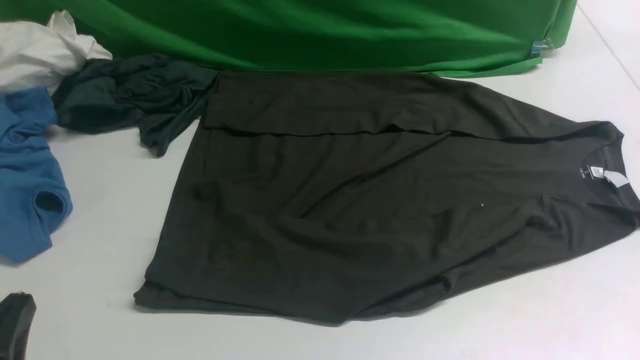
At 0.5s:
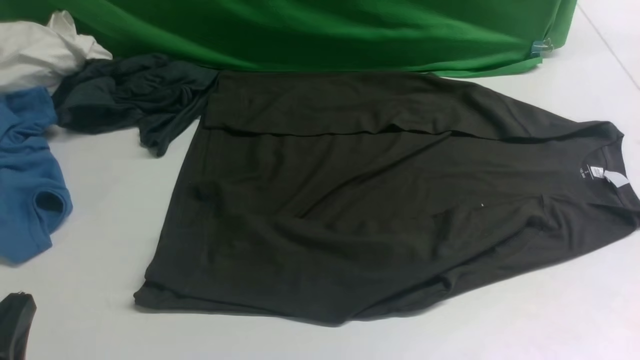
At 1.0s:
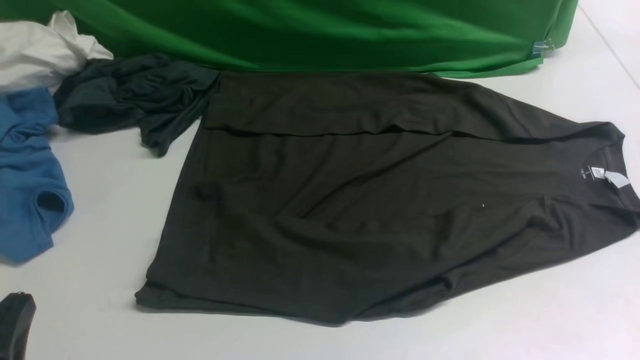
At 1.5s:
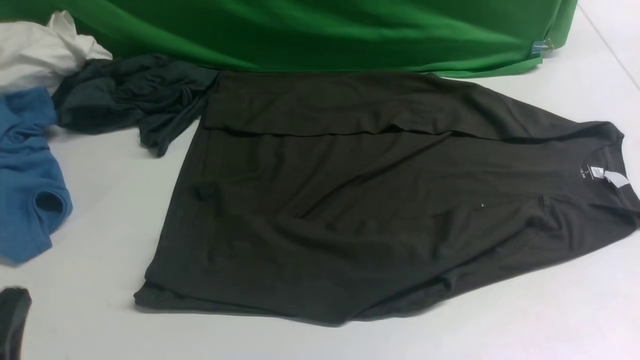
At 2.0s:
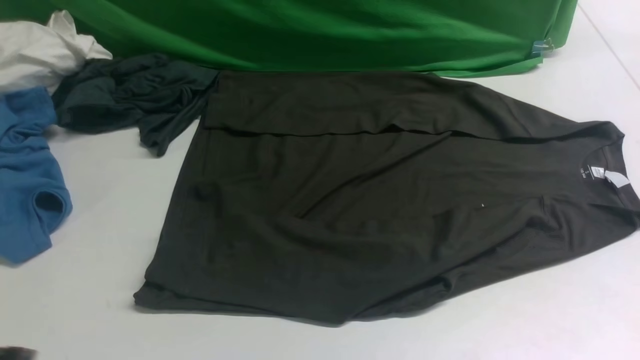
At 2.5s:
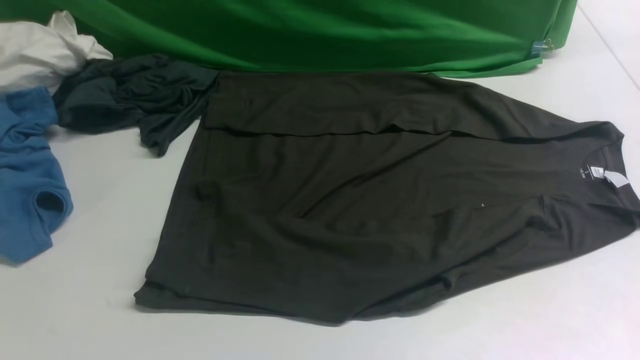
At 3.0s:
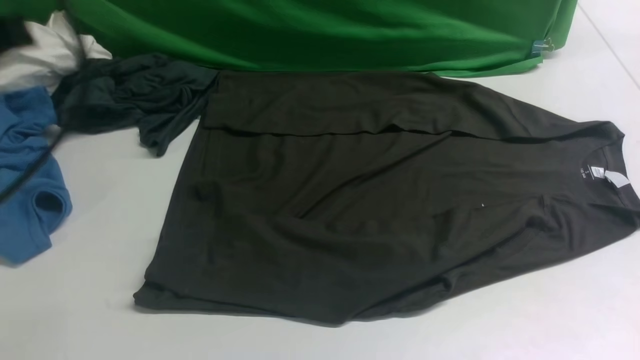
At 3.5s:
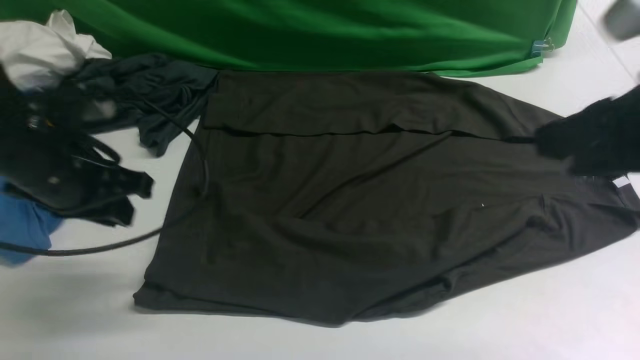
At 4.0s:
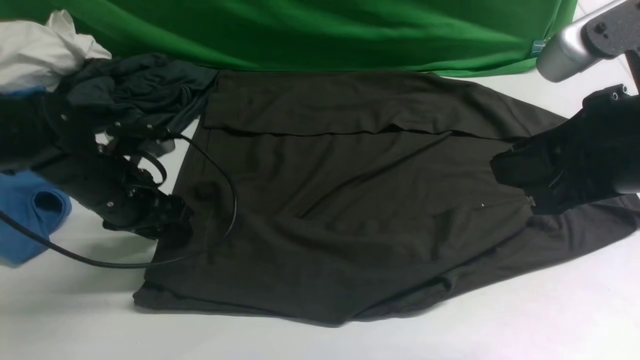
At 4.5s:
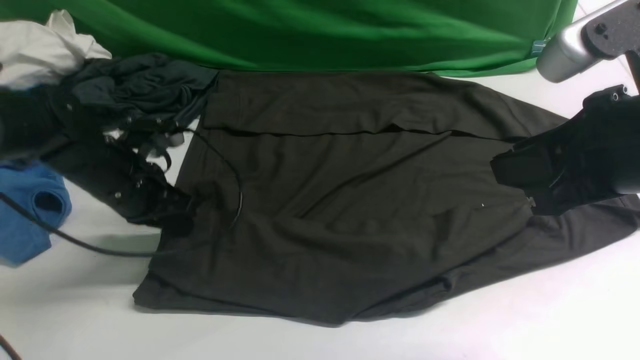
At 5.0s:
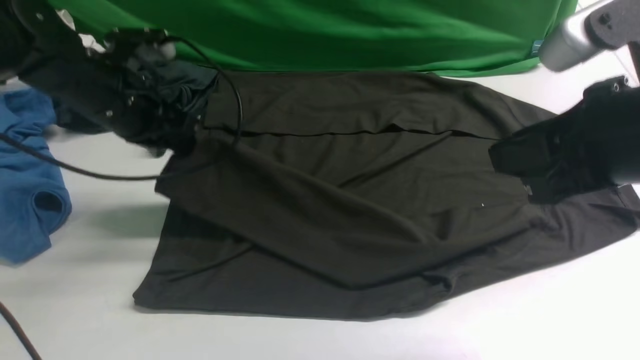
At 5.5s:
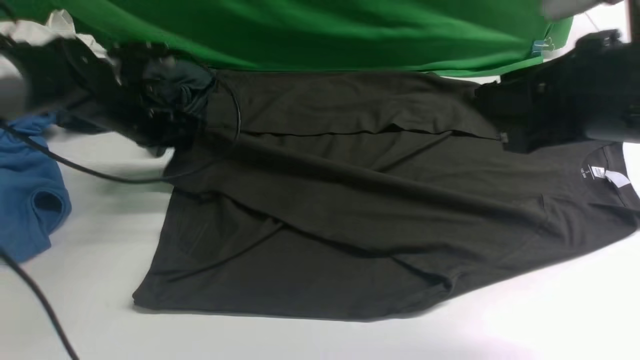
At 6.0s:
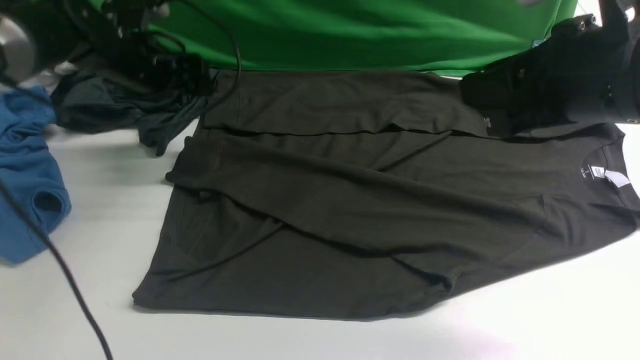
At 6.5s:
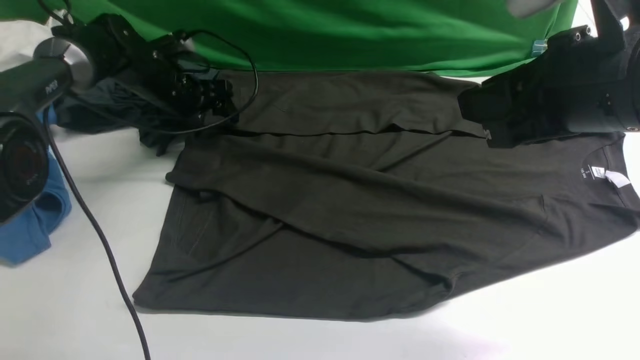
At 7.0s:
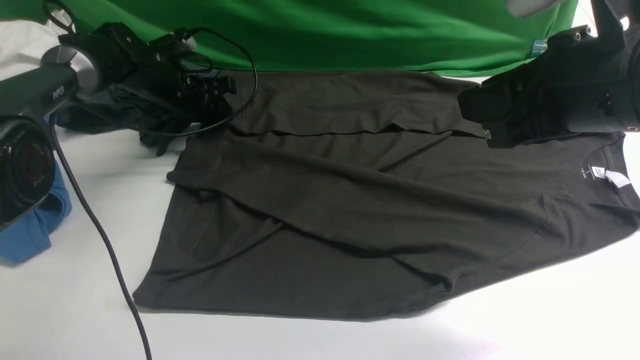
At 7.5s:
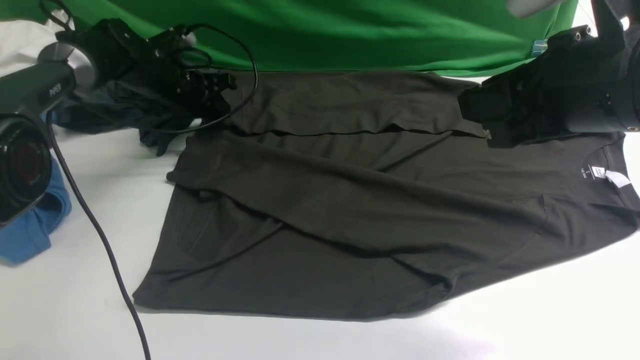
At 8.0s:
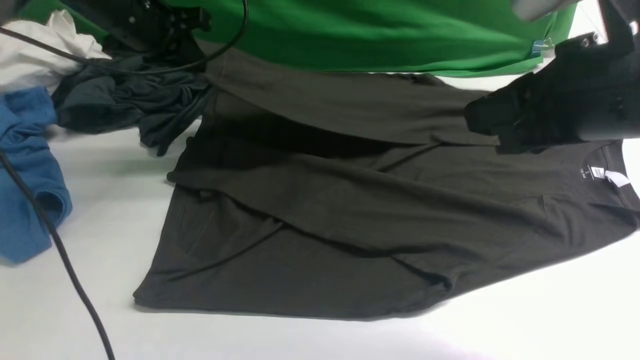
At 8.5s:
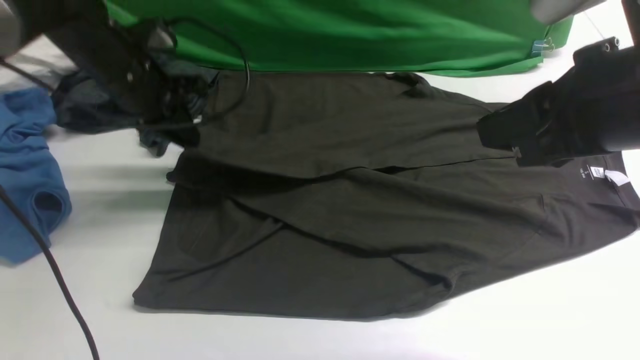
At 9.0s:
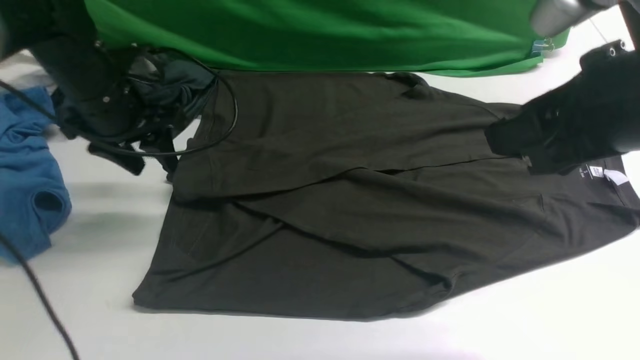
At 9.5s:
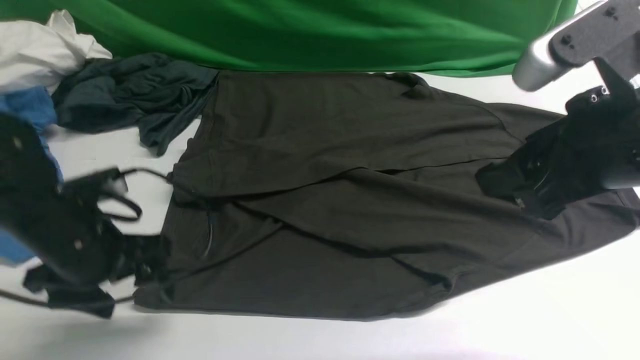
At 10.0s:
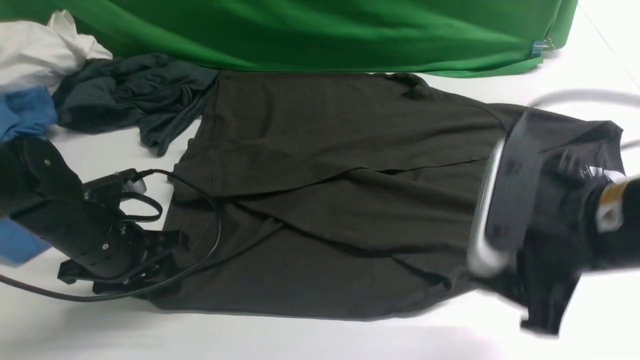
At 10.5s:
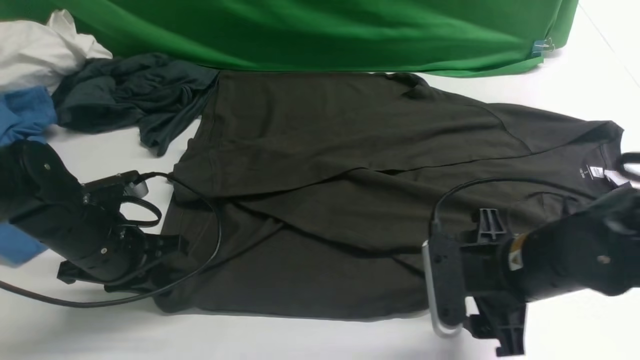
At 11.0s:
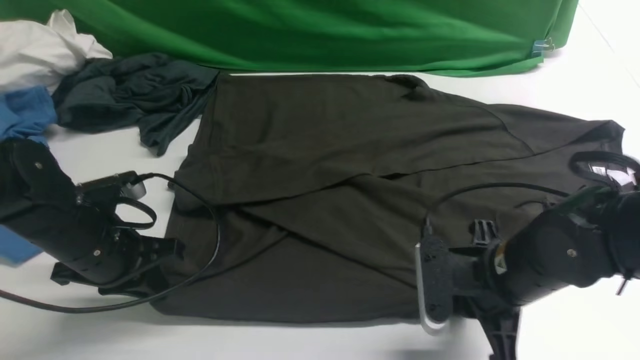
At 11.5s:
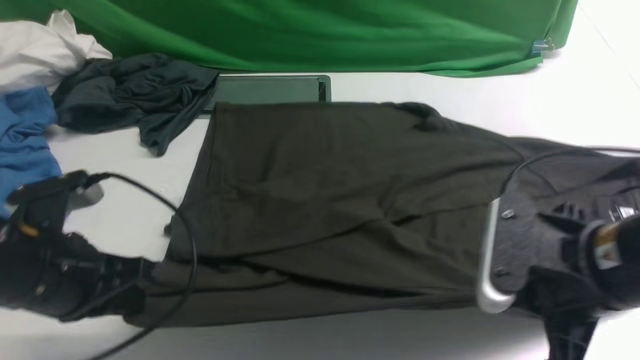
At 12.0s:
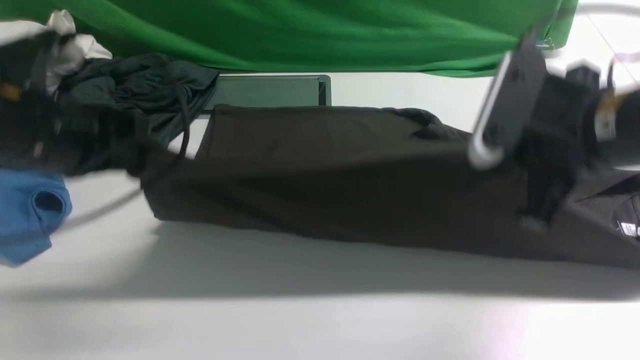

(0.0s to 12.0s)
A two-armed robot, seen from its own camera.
Step, 0.0s - 4.5s: use the left arm to clamp the cuff closest to it.
Step, 5.0s - 5.5s: use the left arm to drag and place the cuff at the centered position on the left edge of the fabric.
Step, 6.0s - 7.5s: use the left arm to clamp the cuff farthest from it.
Step, 8.0s - 9.0s: use the left arm to drag and drop the cuff onto the cuff closest to the left arm.
Step, 9.5s - 11.0s: use both arms simultaneously to clamp the lower edge of the clothing fabric.
0.0s - 2.0s: The left gripper travels upward by some 5 cm.
2.0s - 4.0s: The left gripper is displaced forward by about 30 cm, and opens, while the right gripper goes approximately 20 cm forward, to the left and upward.
4.0s - 6.0s: The left gripper travels forward by approximately 15 cm, and closes and opens again.
6.0s - 8.0s: The left gripper travels upward by approximately 10 cm, and closes its fingers.
8.0s - 10.0s: The right gripper travels downward by approximately 10 cm, and opens; the left gripper moves backward and downward, roughly 25 cm, and opens its fingers.
10.0s - 12.0s: The left gripper moves upward, some 15 cm, and closes up. Meanwhile the right gripper moves forward, about 5 cm, reaches roughly 10 cm downward, then returns, and closes.

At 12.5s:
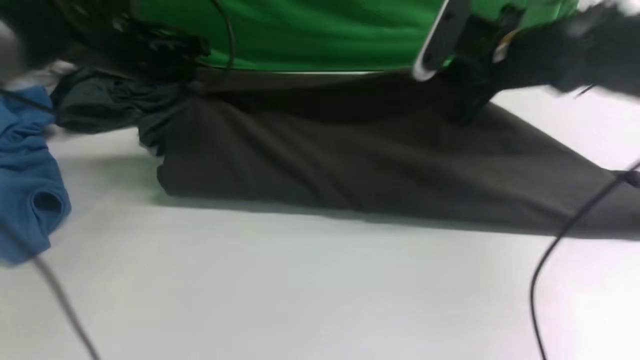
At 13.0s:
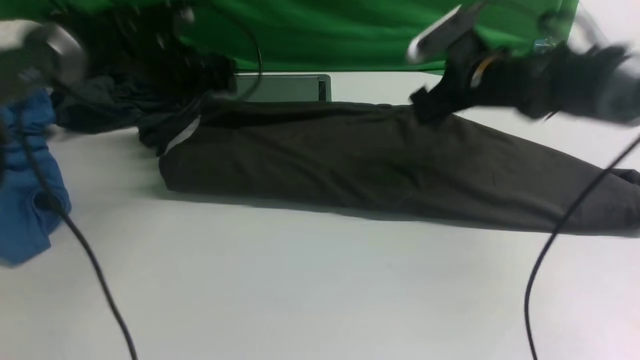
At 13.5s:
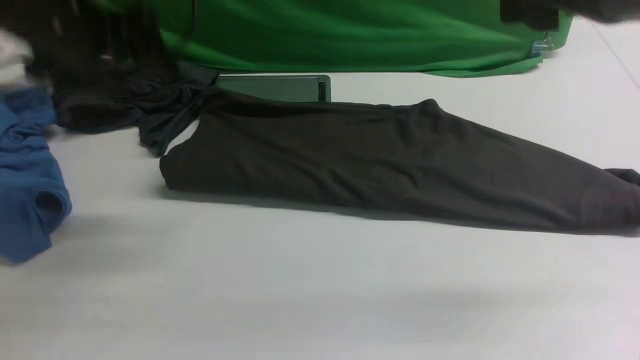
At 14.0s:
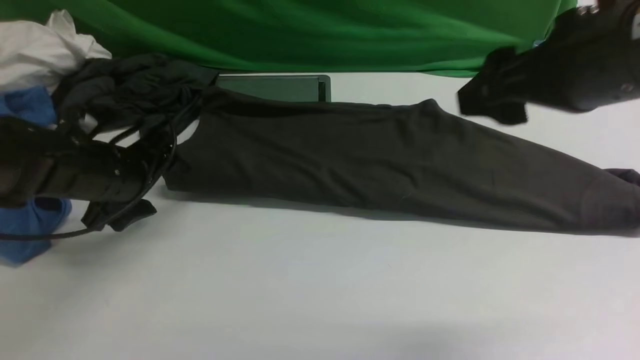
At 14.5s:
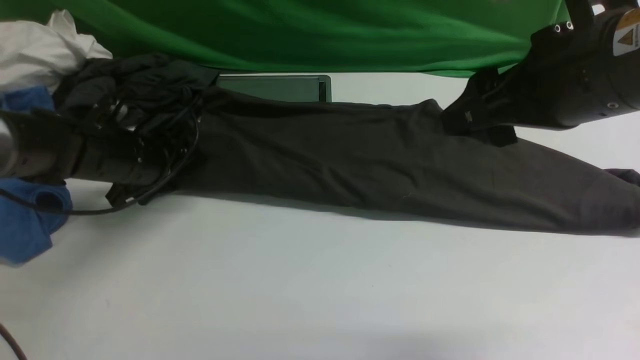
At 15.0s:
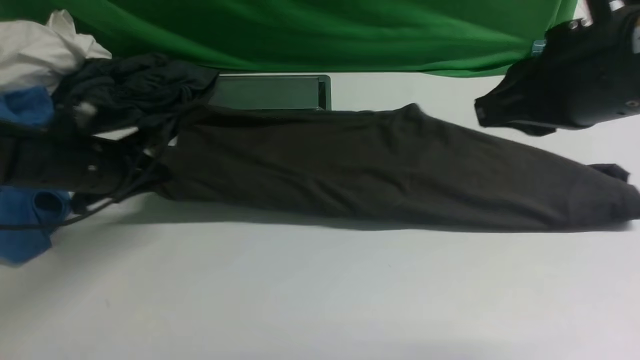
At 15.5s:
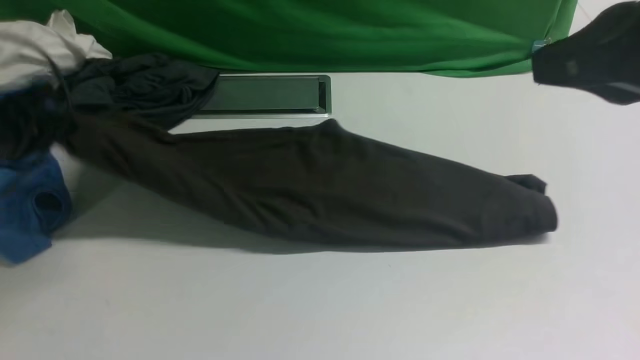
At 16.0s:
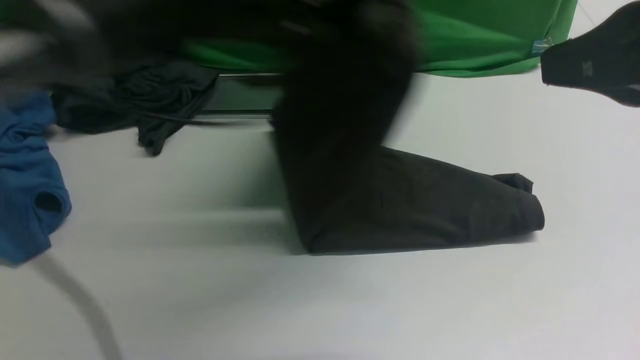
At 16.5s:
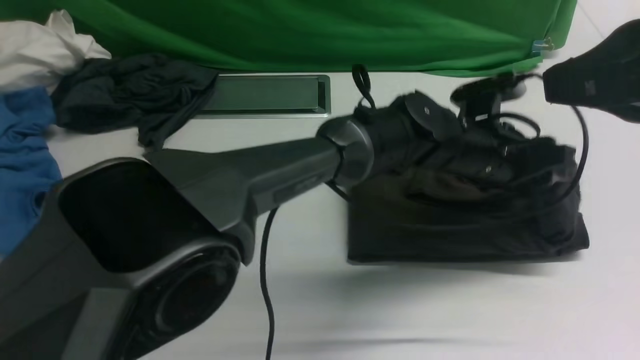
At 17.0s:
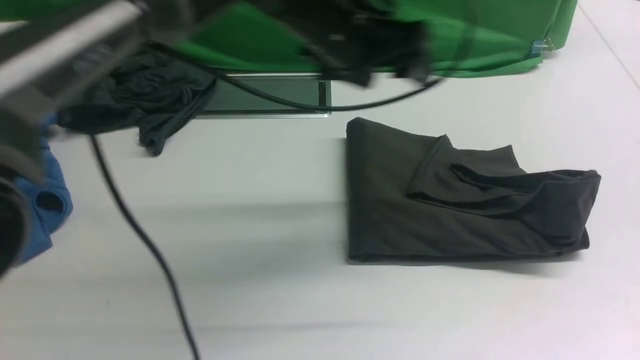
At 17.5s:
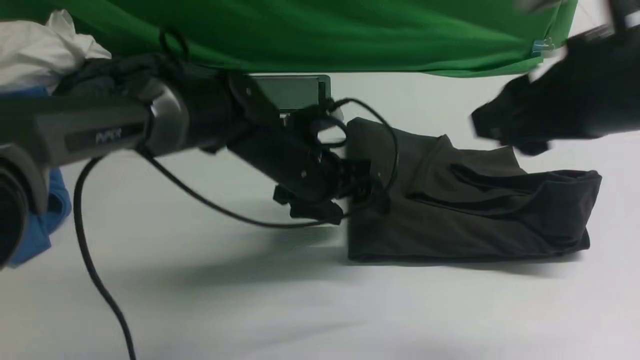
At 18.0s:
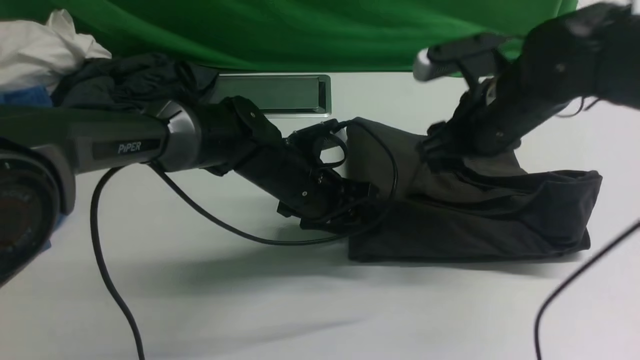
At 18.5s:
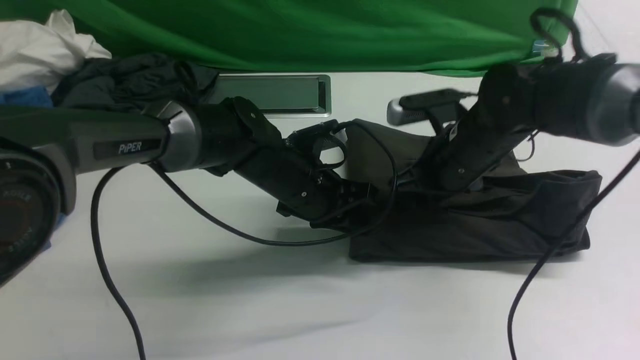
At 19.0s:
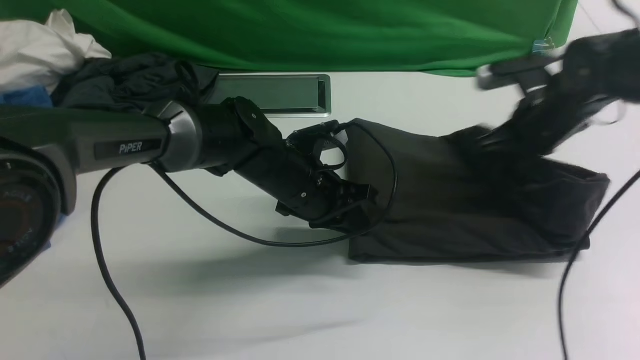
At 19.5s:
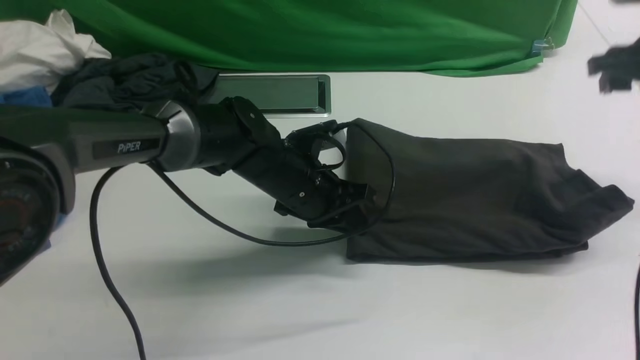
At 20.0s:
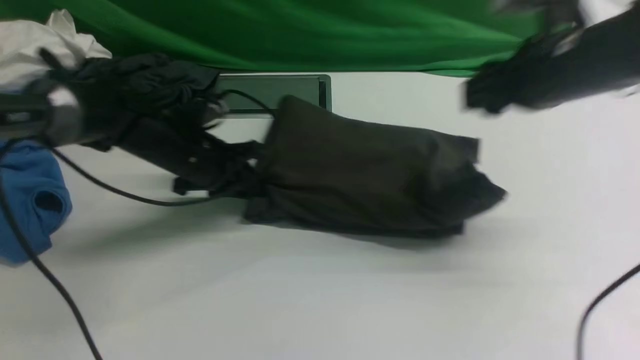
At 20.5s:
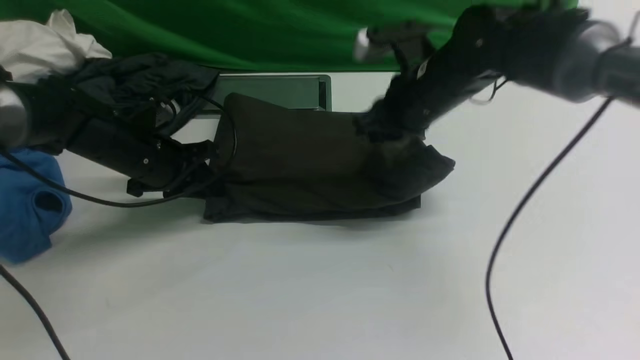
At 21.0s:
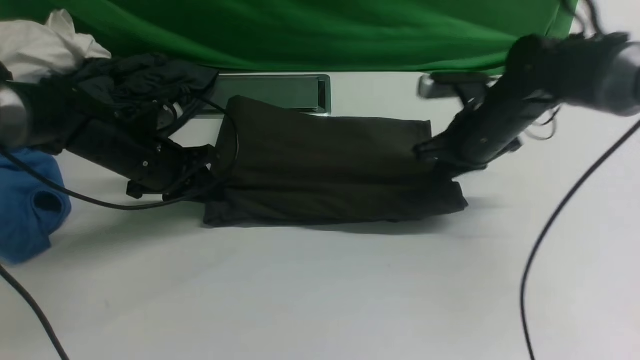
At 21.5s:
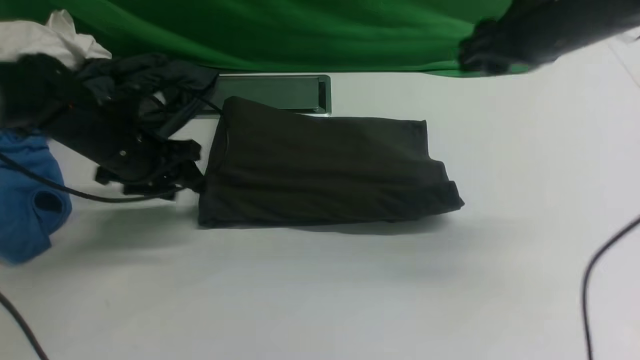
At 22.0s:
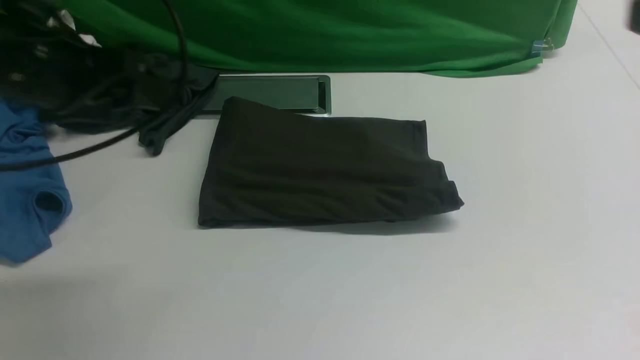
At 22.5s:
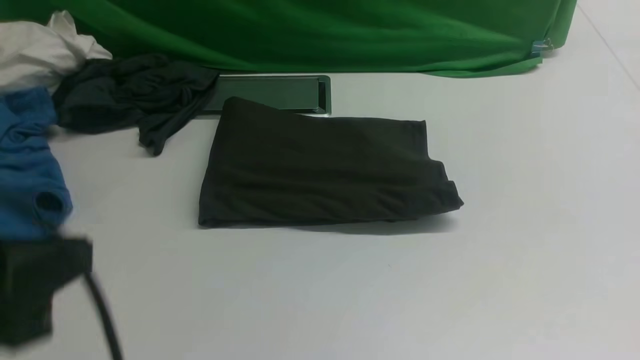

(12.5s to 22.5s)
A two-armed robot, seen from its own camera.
Step, 13.5s - 15.5s: Hold the left edge of the fabric with your left arm.
Step, 16.0s - 16.5s: Drag the left edge of the fabric to the left with your left arm and fold it to the right edge.
12.5s - 14.5s: The right gripper goes some 20 cm backward and upward, and opens; the left gripper is displaced downward and backward by about 10 cm, and opens its fingers.
14.5s - 16.5s: The right gripper shifts some 10 cm backward and upward, and closes its fingers, while the left gripper goes about 40 cm to the right, and closes, then reopens.
16.5s - 18.5s: The right gripper shifts approximately 30 cm downward and forward, and opens its fingers. Meanwhile the left gripper travels to the left by roughly 20 cm, and closes.
18.5s - 20.5s: The left gripper moves to the left, some 20 cm. Meanwhile the right gripper reaches some 20 cm to the right, then returns, and closes up.
20.5s - 22.5s: The right gripper goes approximately 35 cm backward and to the right; the left gripper shifts some 40 cm backward and upward, and opens and closes again.
